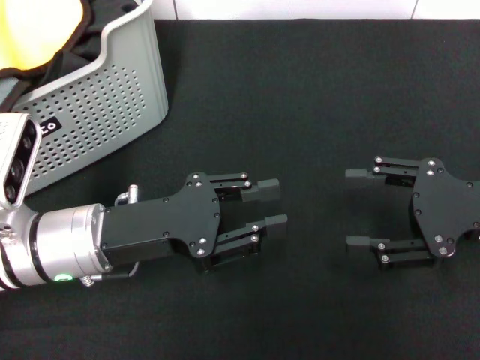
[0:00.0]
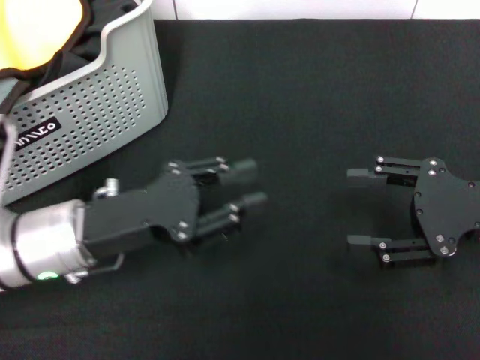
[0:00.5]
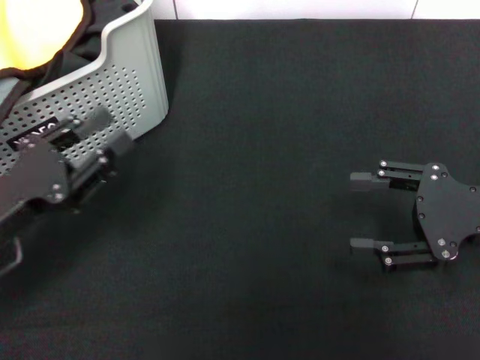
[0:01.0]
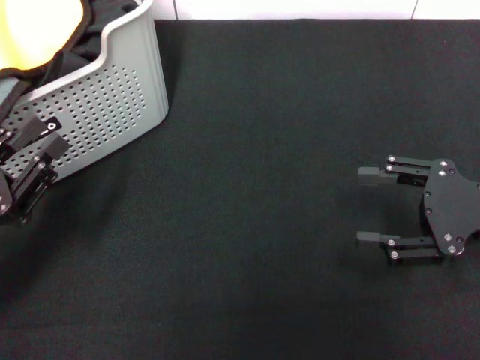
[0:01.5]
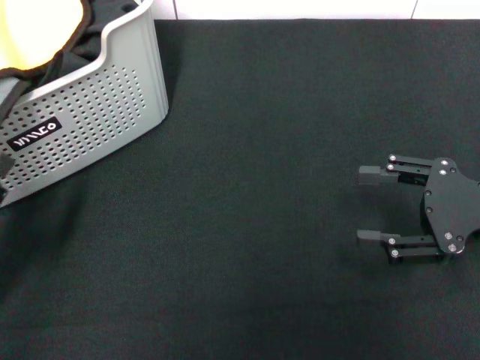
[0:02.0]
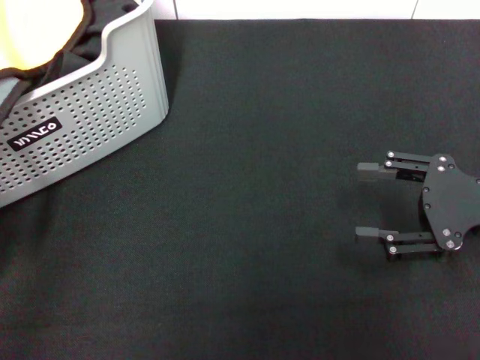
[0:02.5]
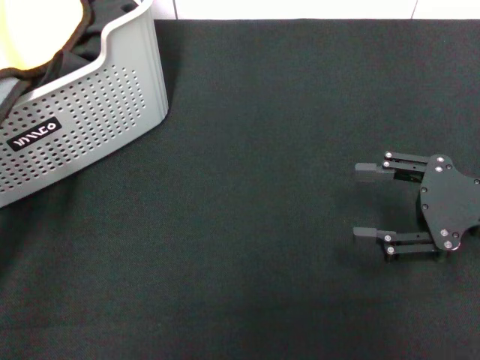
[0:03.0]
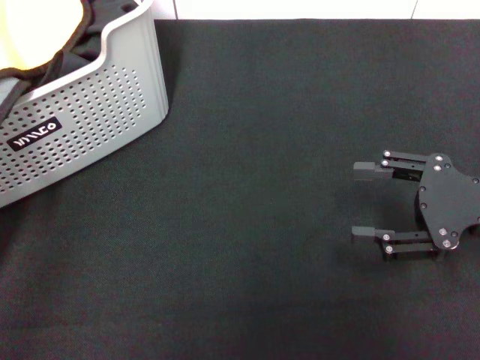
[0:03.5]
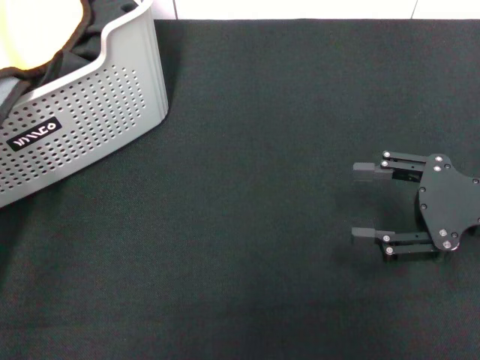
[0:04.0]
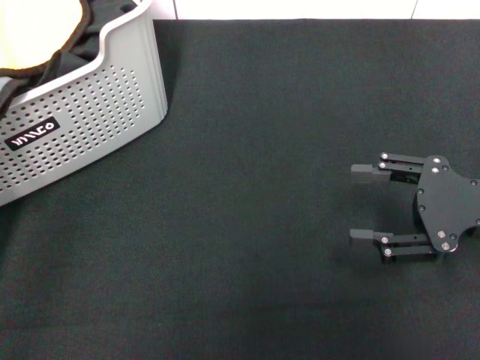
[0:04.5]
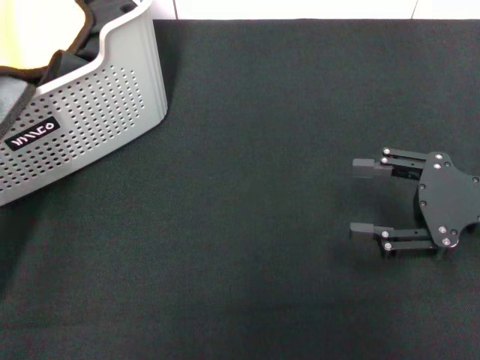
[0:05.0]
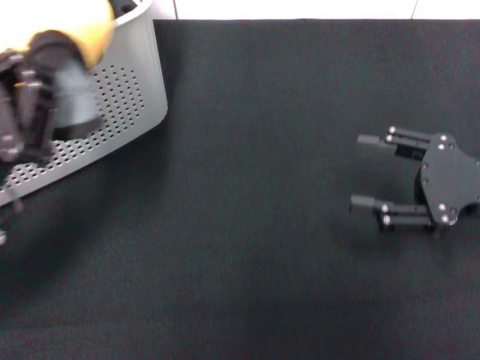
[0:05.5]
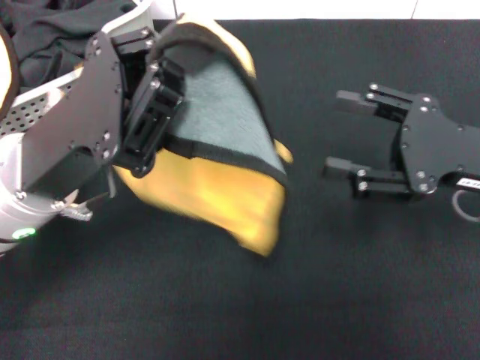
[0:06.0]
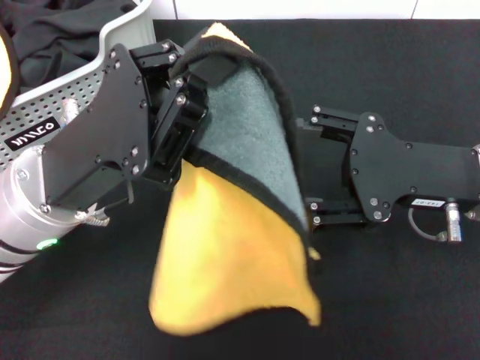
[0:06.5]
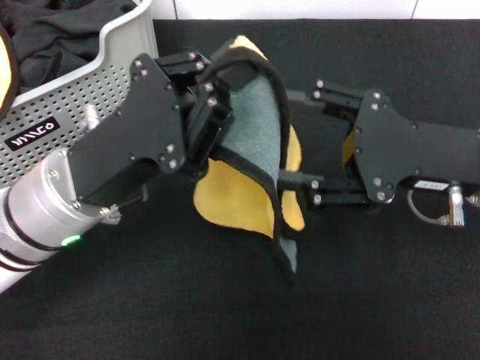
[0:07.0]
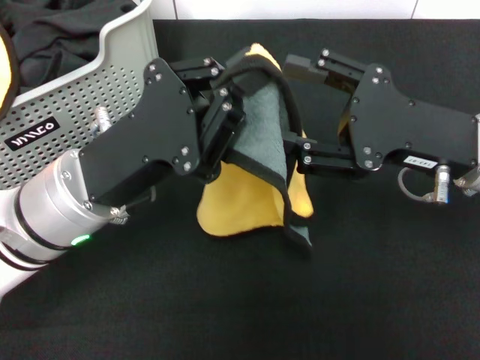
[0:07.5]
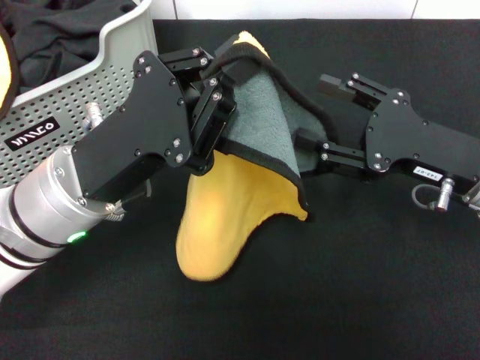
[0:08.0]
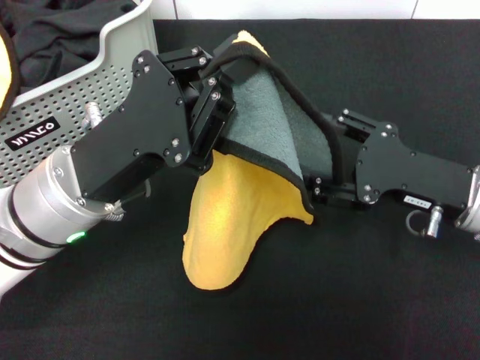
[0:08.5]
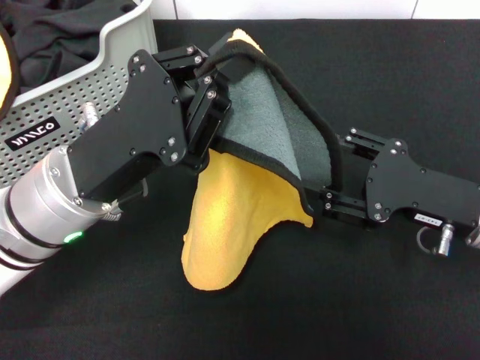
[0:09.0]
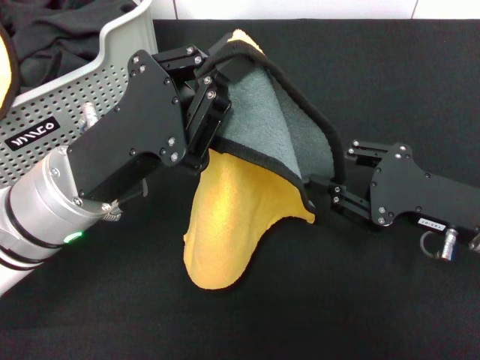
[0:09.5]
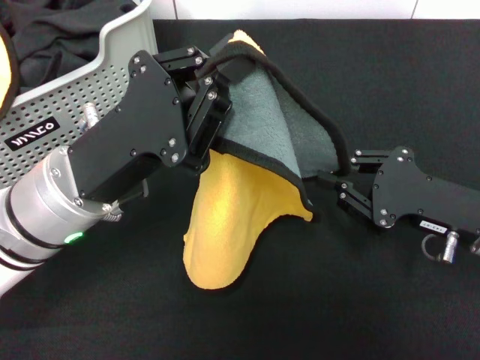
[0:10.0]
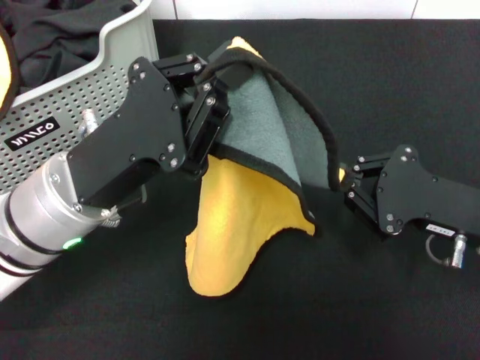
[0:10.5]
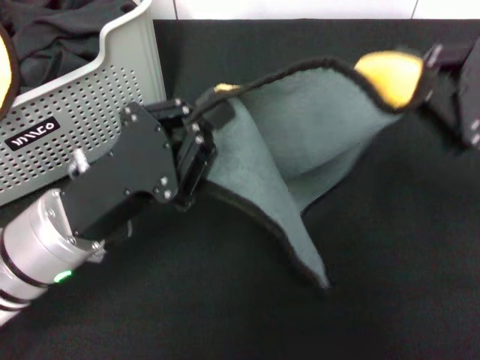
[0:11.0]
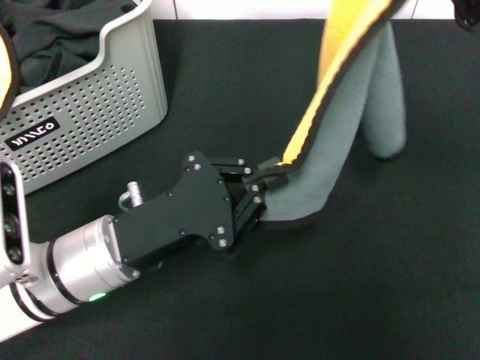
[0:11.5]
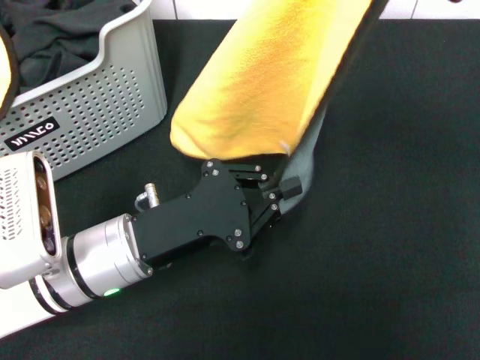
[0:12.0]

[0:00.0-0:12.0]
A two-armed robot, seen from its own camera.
Task of the whole recording: pick up the towel from the storage box and lay it flat on the black tablecloth.
Step, 0:00.0 to 0:04.0: Pick up a towel with the left gripper.
Step, 0:04.5 to 0:10.0: Spread the towel flat with the left gripper.
0:00.0 to 0:02.0: The left gripper goes some 15 cm to the left and backward.
0:04.0 to 0:06.0: The left gripper is displaced to the right, upward and forward by some 15 cm, and closes up.
0:08.0 to 0:10.0: The right gripper closes up.
0:10.0 to 0:12.0: The left gripper shifts roughly 5 cm downward, while the right gripper goes approximately 15 cm upward.

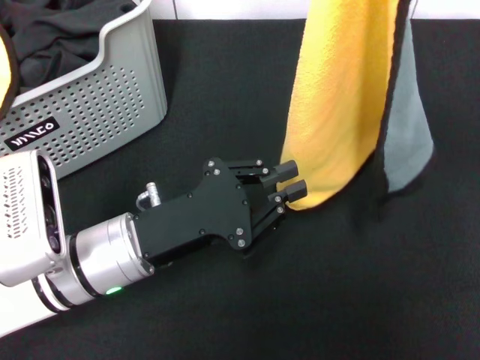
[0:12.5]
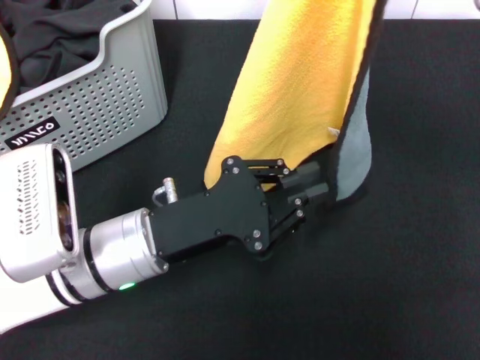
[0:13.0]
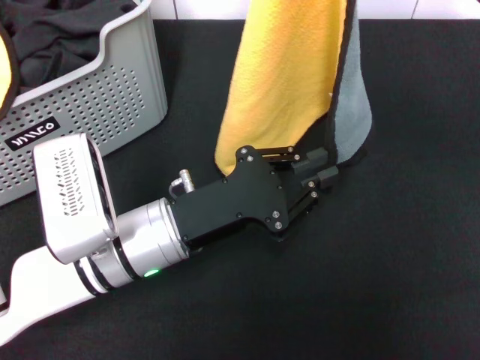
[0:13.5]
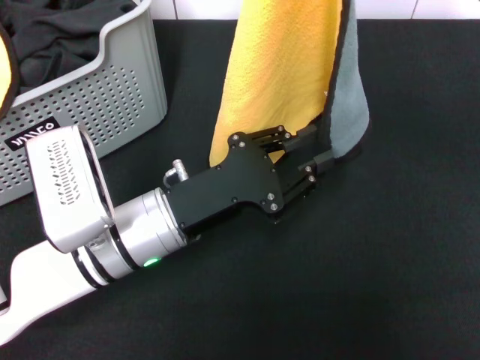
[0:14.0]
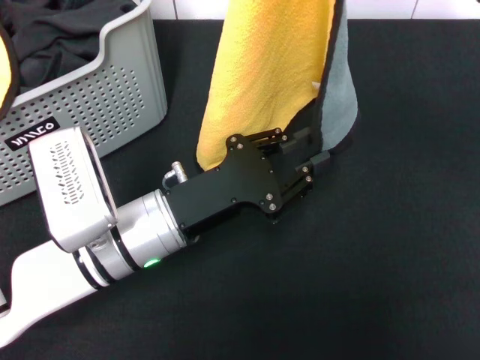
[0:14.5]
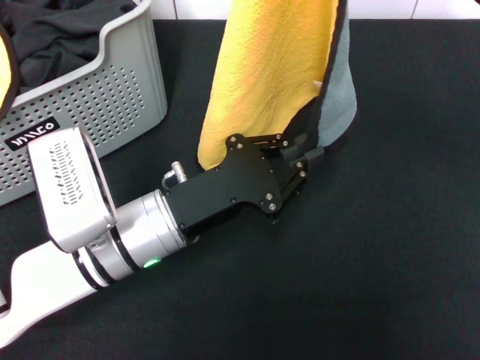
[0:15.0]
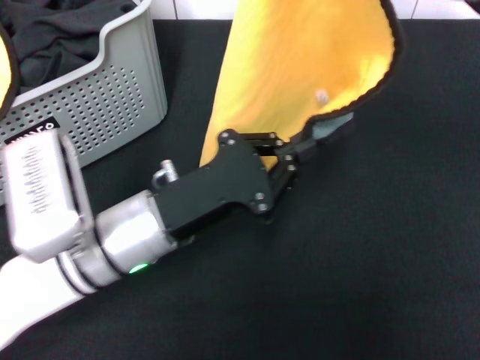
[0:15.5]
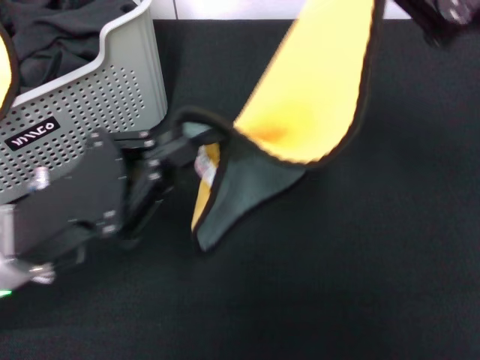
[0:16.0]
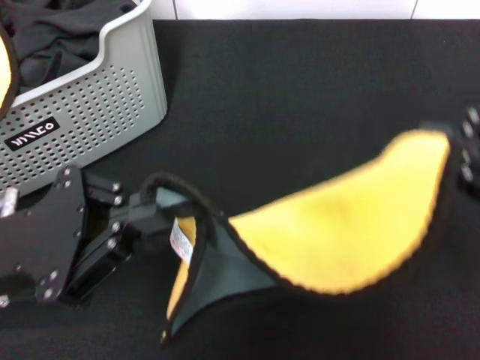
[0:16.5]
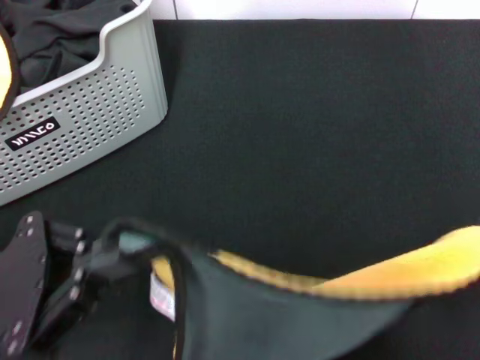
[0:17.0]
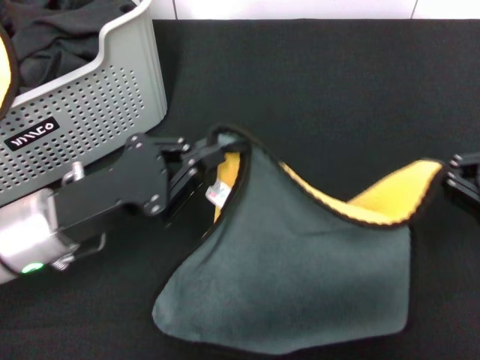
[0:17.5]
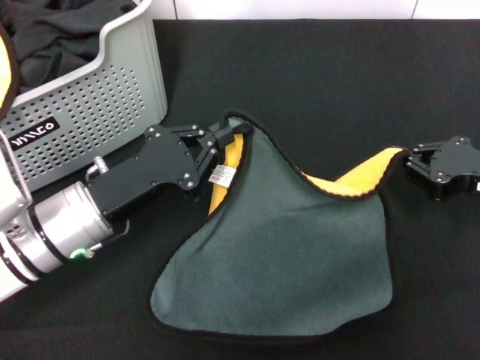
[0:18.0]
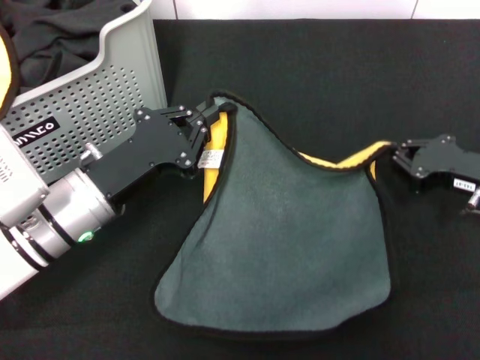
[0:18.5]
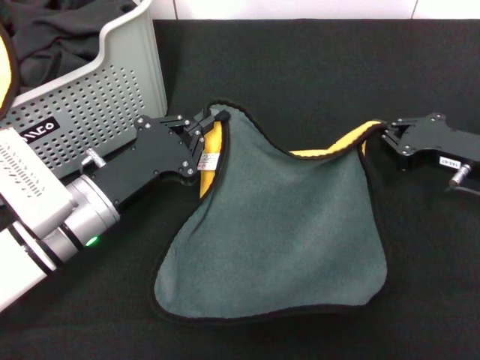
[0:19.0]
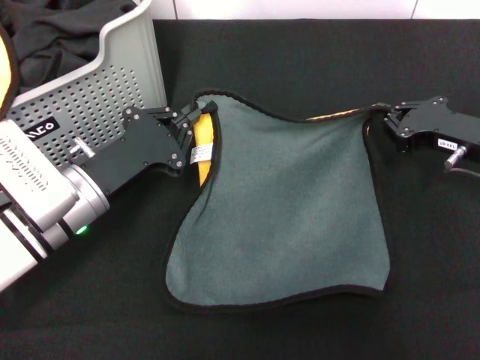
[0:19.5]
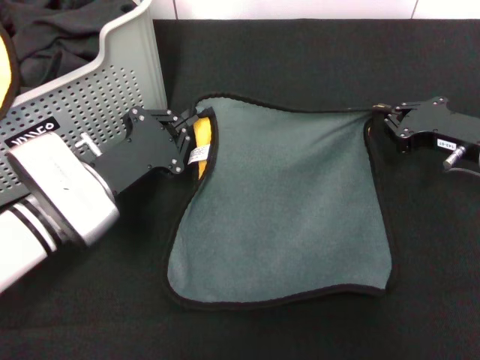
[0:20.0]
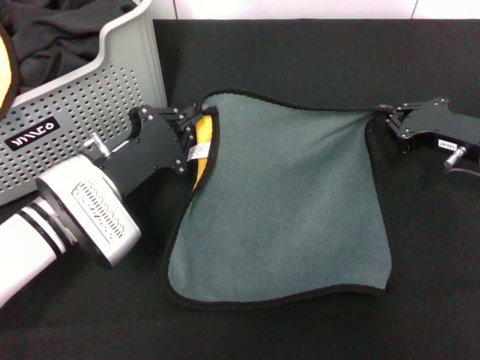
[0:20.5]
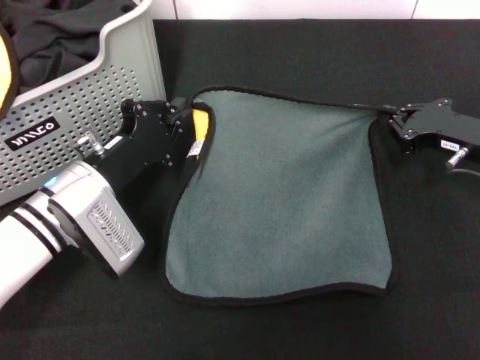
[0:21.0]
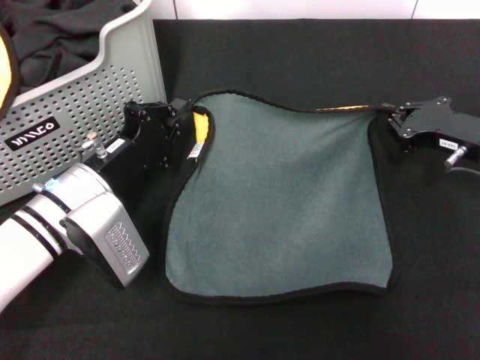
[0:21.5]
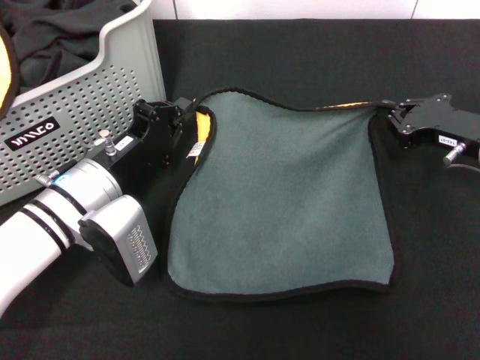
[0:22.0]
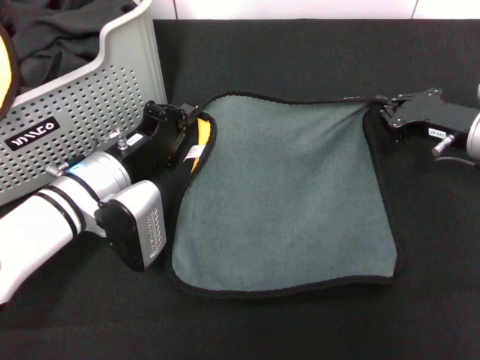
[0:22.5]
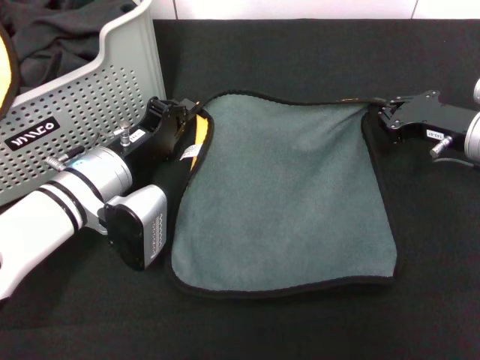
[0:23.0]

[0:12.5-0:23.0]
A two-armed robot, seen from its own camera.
Task of the whole recording: pick up the towel from the storage box and lay it flat on the black tablecloth.
0:14.5 to 0:16.5: The right gripper heads backward and to the right, covering some 15 cm; the left gripper heads to the left, upward and backward, covering approximately 15 cm, and closes.
0:16.5 to 0:19.0: The left gripper is displaced downward and forward by some 10 cm, while the right gripper heads downward and forward, covering roughly 25 cm.

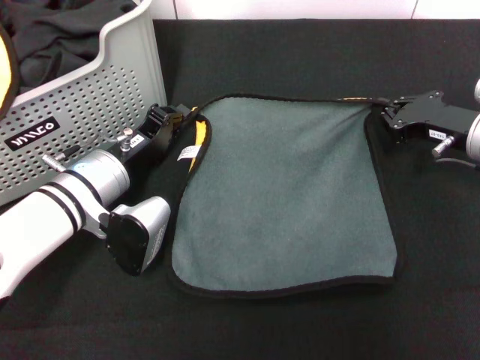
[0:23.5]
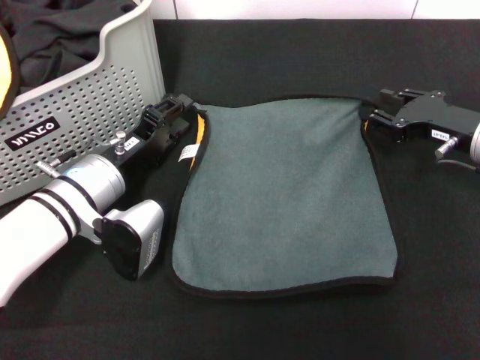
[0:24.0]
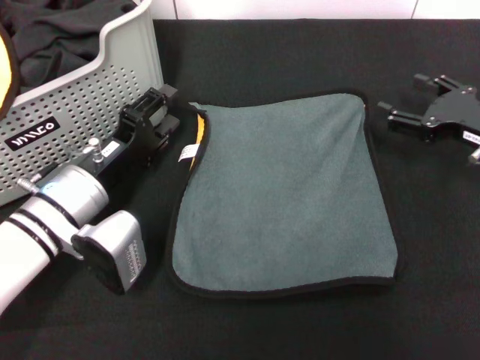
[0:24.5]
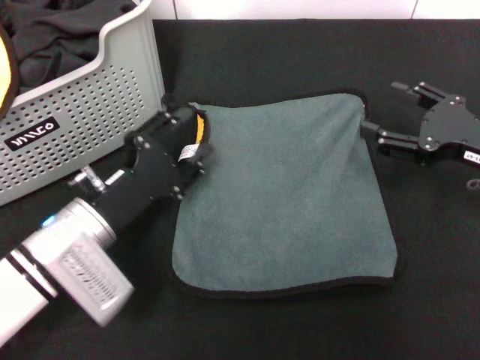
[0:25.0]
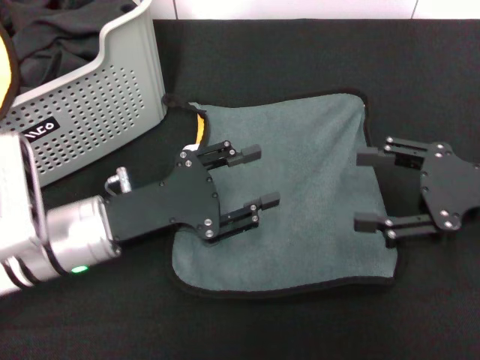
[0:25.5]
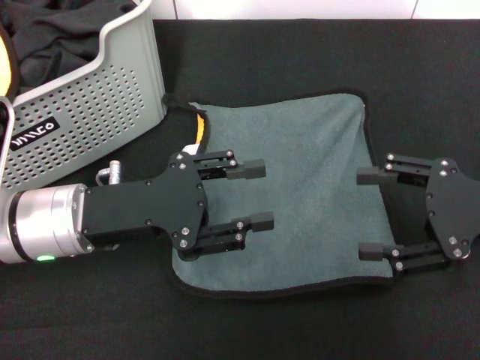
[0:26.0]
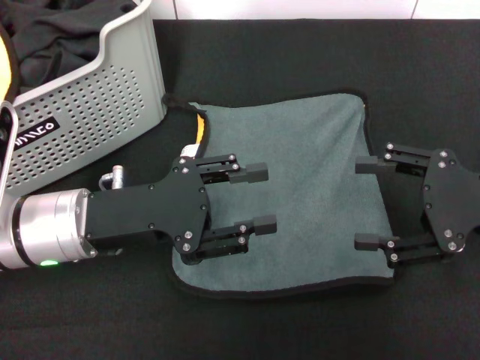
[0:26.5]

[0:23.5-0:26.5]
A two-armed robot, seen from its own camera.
Task of the whole recording: pick up the towel from the storage box and lay it flat on the black tablecloth.
0:23.5 to 0:25.0: Both grippers travel together backward, approximately 5 cm. The left gripper opens up, while the right gripper opens.
0:25.0 to 0:26.5: The right gripper shifts by roughly 5 cm. Meanwhile the left gripper heads upward, covering some 5 cm.
